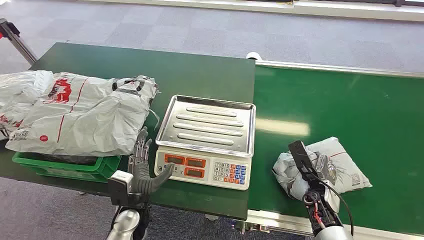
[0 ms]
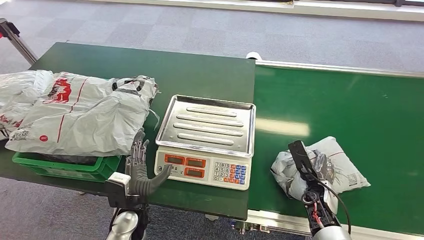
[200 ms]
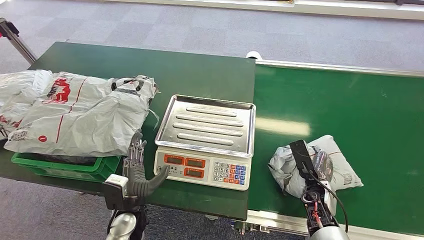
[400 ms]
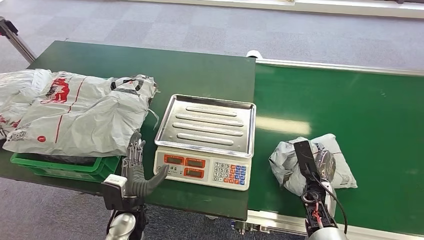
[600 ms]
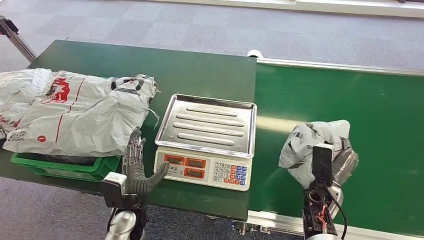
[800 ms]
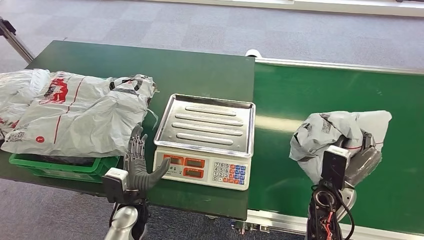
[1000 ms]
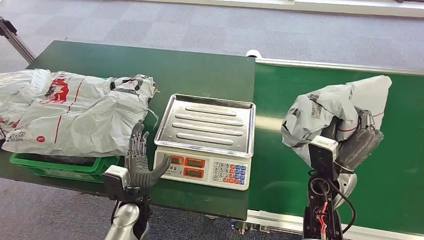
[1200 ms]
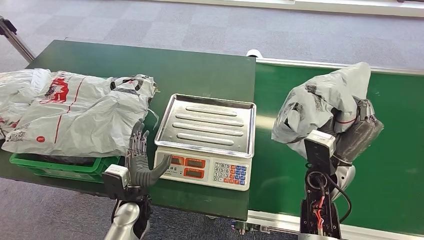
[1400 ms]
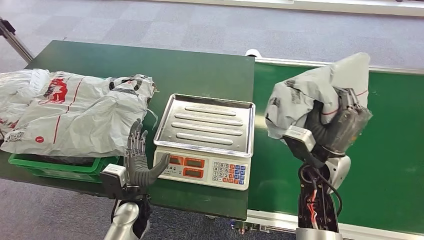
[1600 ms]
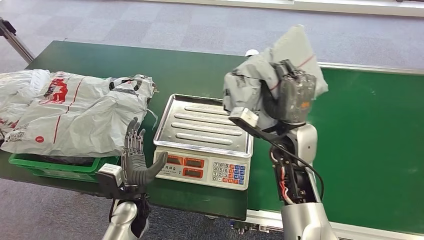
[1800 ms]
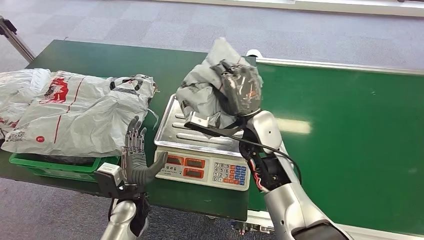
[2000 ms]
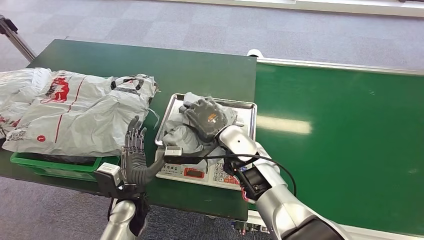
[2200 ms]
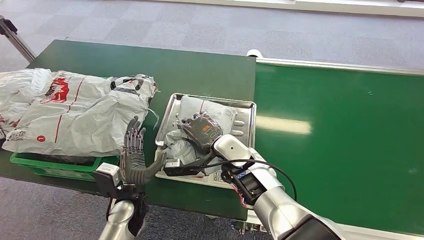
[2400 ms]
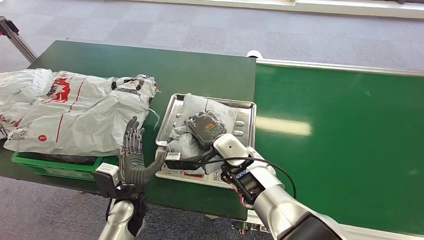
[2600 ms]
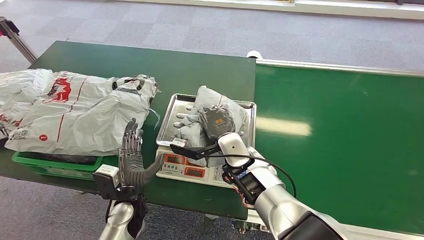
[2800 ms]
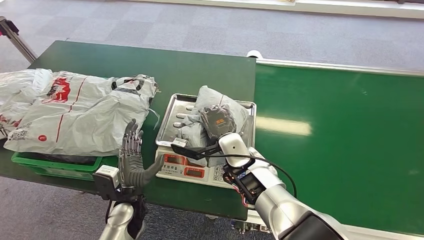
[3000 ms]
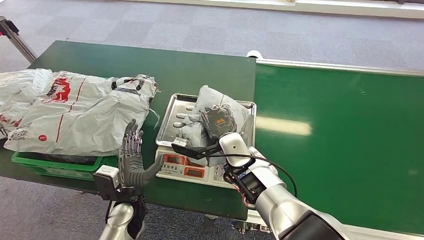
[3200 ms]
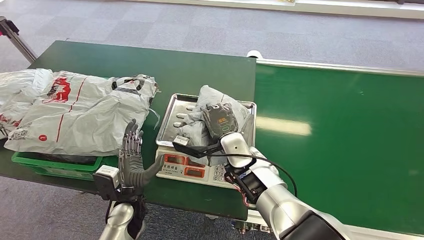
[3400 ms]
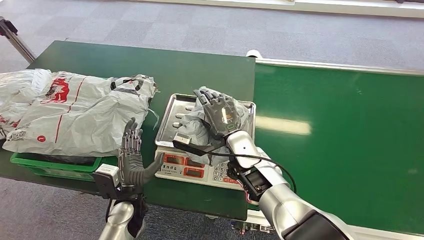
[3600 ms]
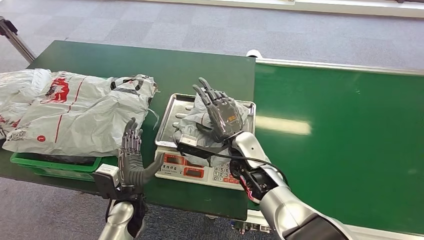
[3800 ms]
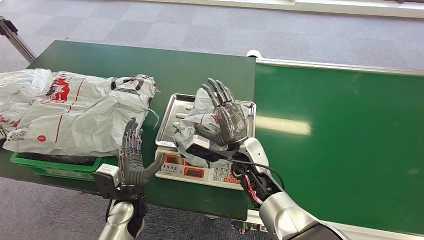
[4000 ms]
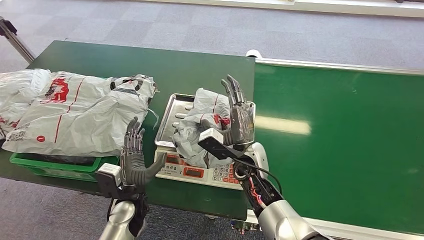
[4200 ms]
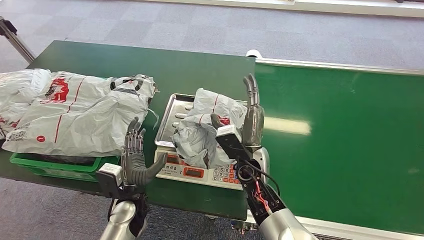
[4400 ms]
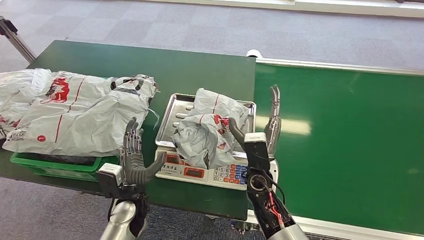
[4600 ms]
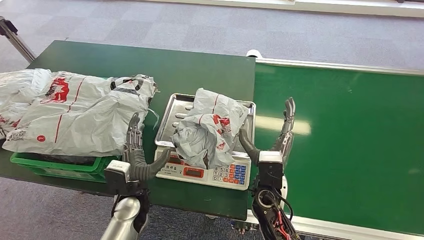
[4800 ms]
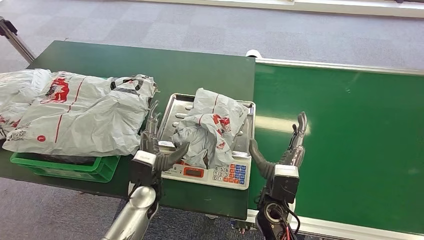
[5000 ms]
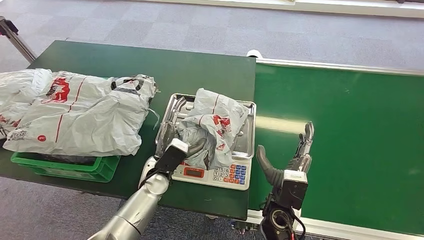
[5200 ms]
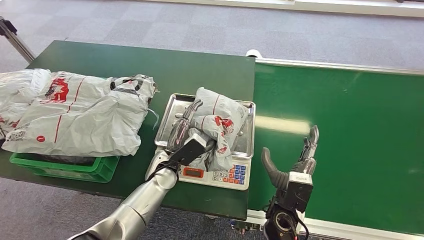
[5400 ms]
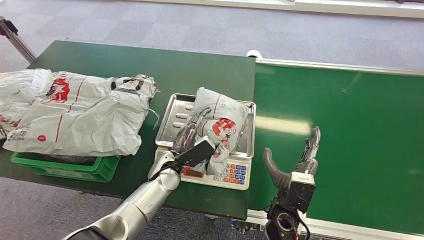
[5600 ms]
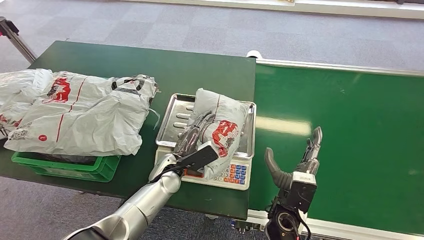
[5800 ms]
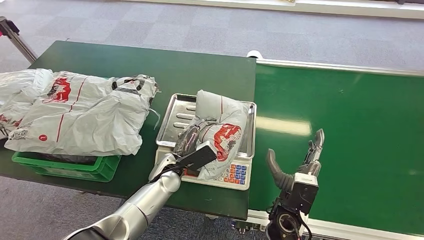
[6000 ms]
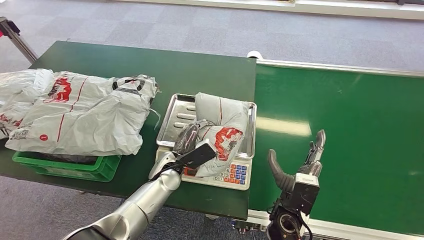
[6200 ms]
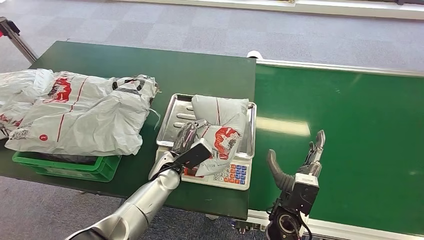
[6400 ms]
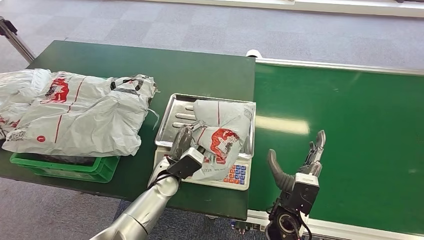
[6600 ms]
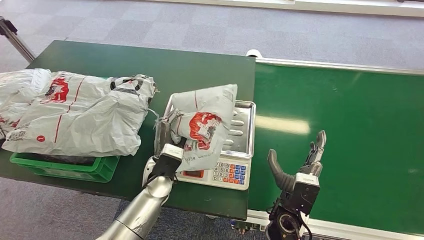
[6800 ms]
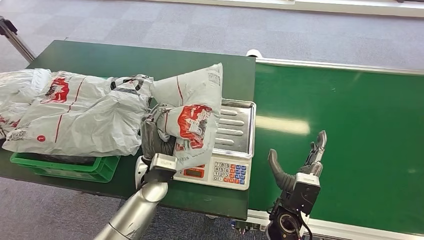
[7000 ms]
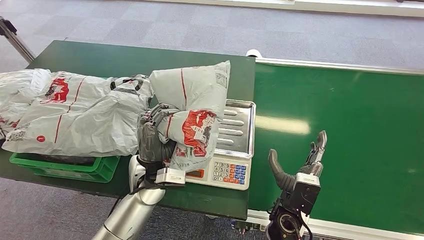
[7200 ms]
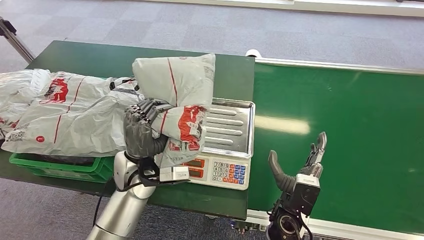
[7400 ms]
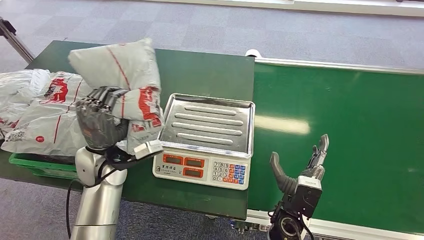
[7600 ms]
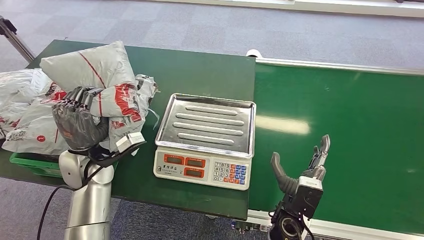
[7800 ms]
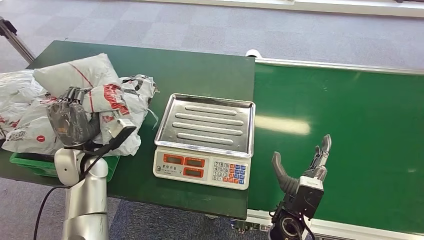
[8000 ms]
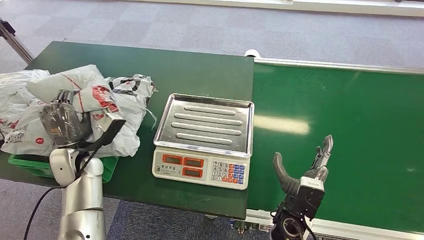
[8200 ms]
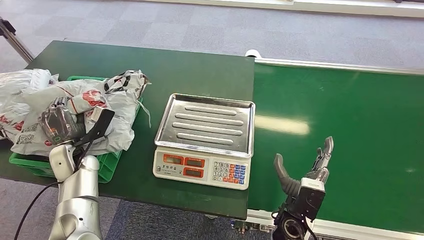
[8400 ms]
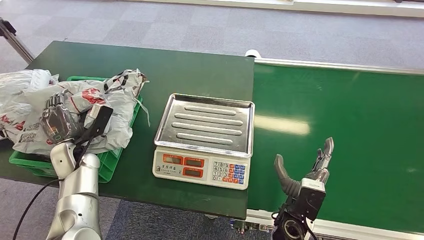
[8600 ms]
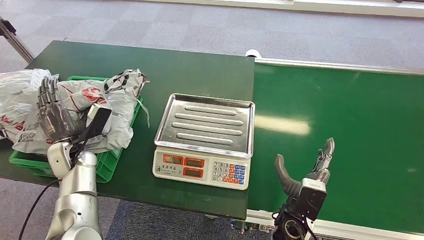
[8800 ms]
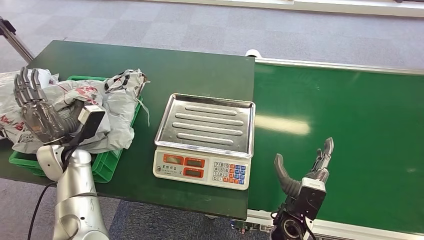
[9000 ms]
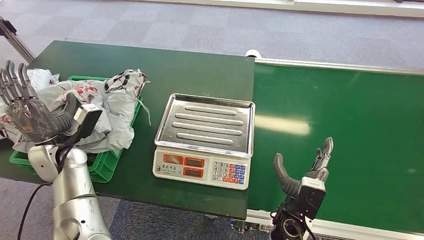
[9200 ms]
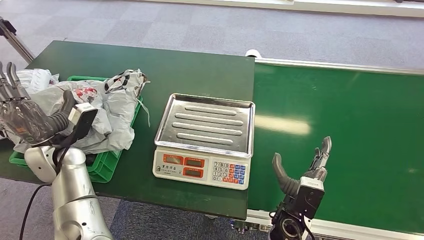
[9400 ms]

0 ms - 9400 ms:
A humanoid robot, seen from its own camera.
Step, 0 ms - 1000 ms: Pick up the package from the conveyor belt.
Step, 1800 ms - 3000 ms: Place the package onto the inbound machine.
Step, 6400 ms - 7400 ms: Pick up the package from the inbound machine.
Step, 7800 ms - 9400 ms: Place the package into the parcel locker.
3200 ms - 4800 ms: The right hand goes some 10 cm backward and to the right.
4800 ms - 6200 ms: The right hand ends up some 10 cm from where it was. The left hand shifts roughly 10 cm forward and to the right.
7800 ms - 9400 ms: The left hand travels to the left by about 10 cm.
